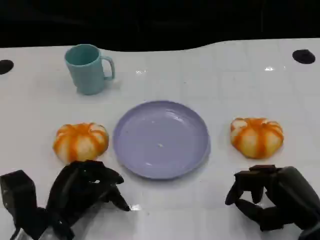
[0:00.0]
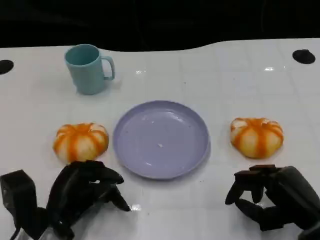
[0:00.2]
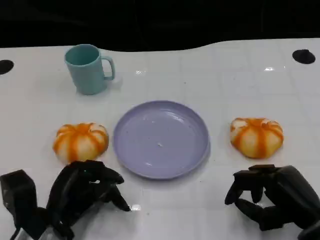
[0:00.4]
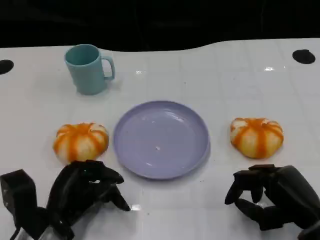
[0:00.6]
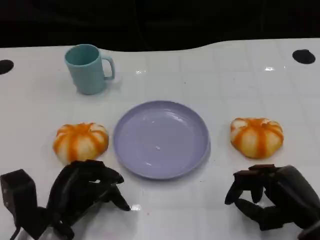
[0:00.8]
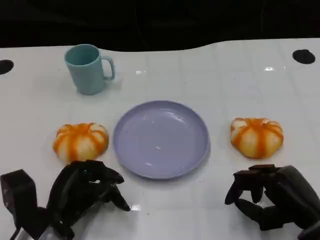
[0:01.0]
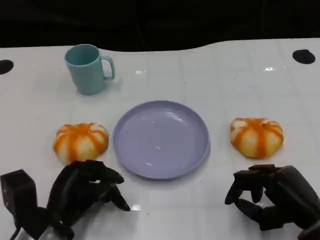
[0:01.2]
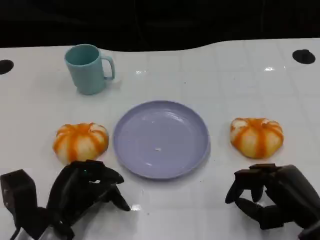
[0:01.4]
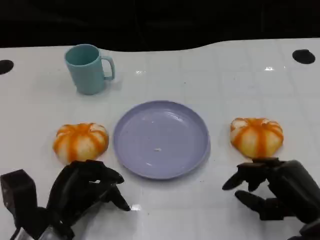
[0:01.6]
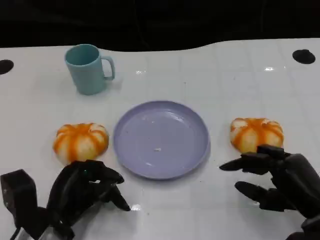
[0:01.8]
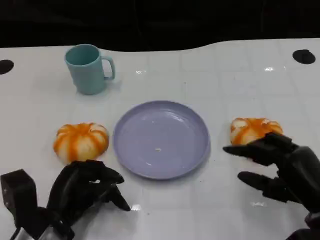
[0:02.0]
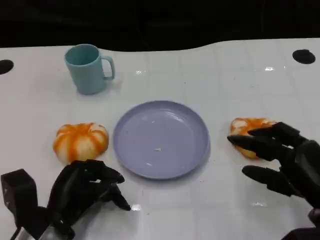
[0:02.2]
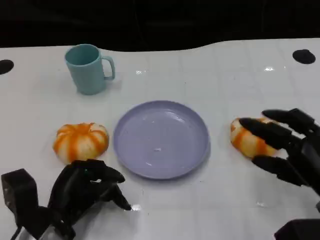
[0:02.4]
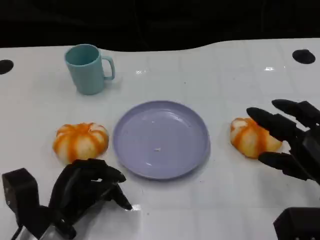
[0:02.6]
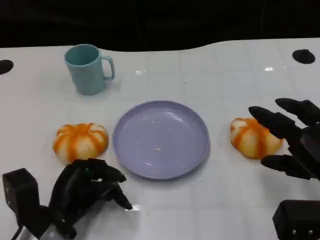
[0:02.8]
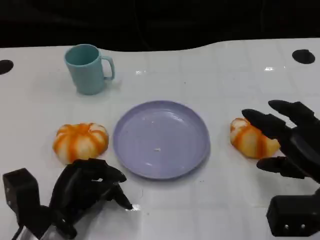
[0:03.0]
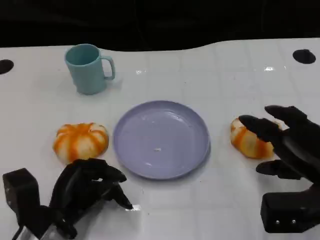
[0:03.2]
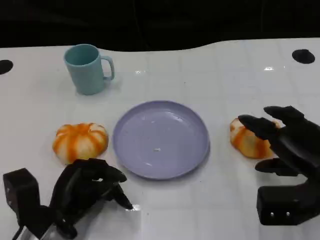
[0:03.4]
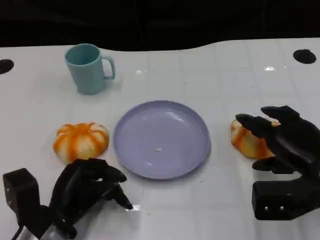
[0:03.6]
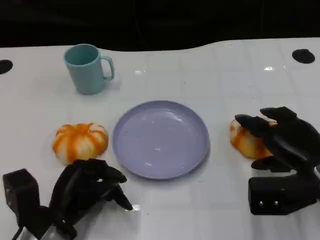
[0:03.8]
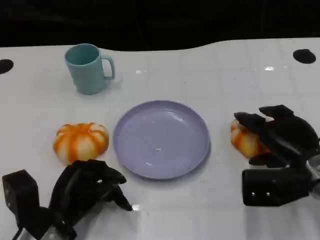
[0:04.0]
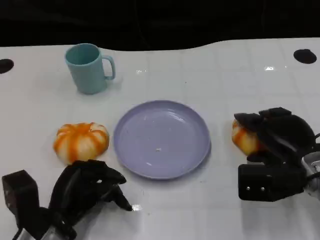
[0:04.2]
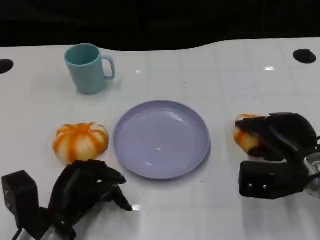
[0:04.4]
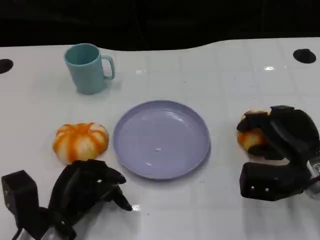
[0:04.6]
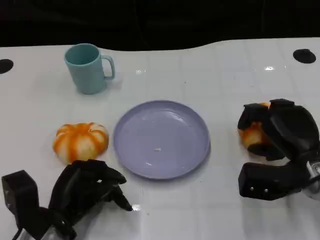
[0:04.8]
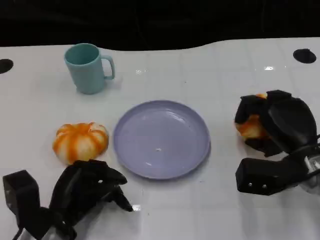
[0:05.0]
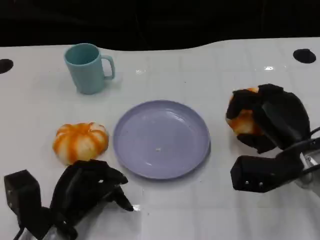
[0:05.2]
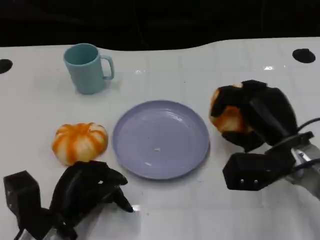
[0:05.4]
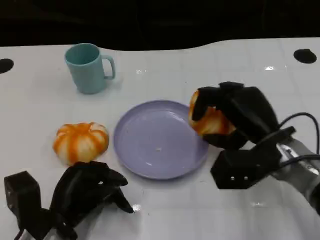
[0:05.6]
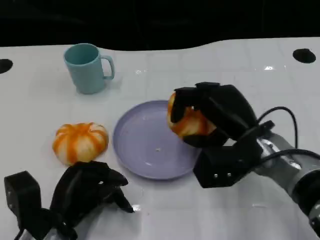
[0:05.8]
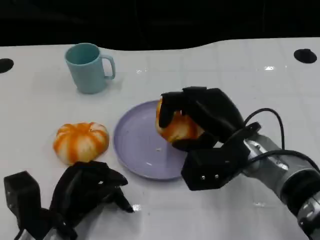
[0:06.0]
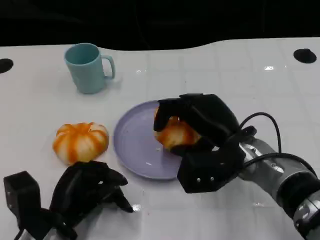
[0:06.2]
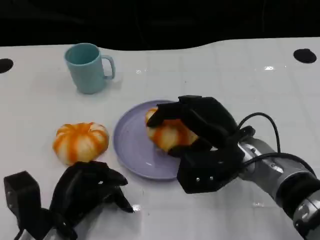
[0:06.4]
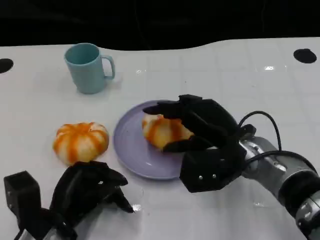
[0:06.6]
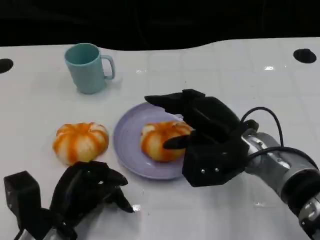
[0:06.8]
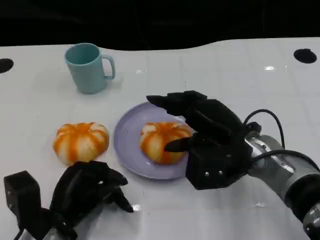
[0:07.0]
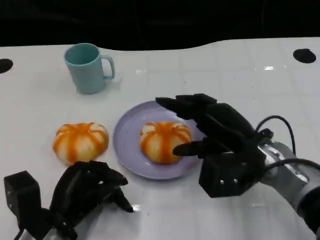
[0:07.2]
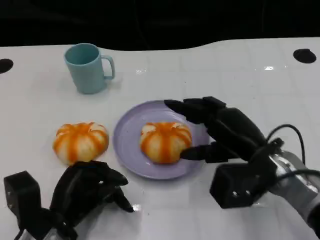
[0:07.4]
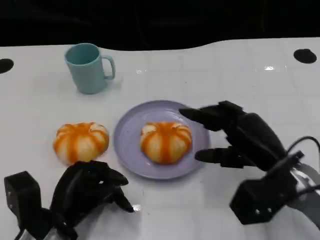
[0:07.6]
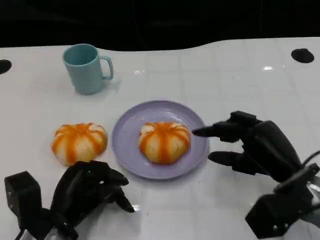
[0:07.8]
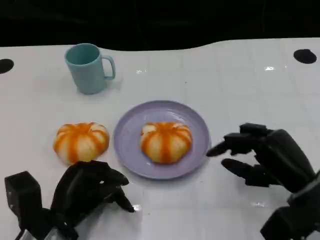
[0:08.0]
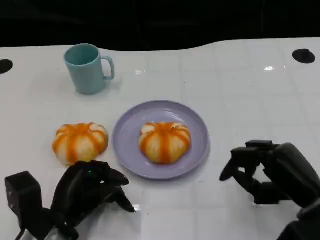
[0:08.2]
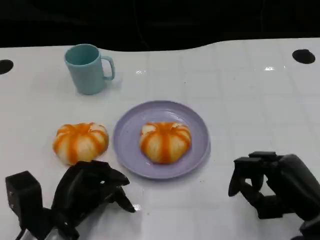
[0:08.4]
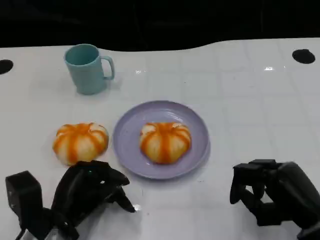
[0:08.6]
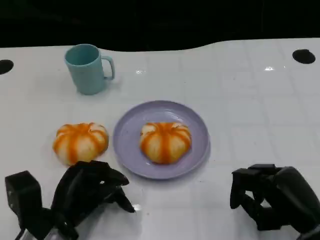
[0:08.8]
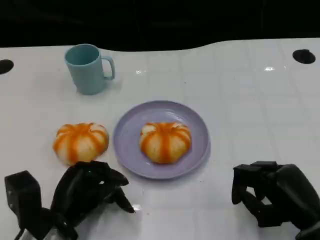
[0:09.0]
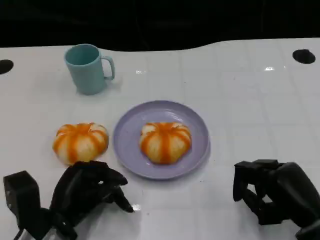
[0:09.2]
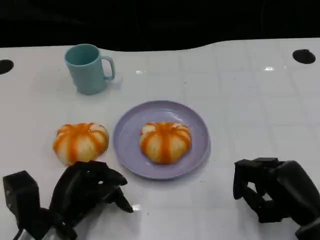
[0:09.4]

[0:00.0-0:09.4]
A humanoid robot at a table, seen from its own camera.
Task of the whole recording: Grasp the bread from the table and place it into the plate.
0:00.0 to 0:01.6: Both hands stay about where they are.
0:01.6 to 0:03.2: The right hand moves about 5 cm.
0:03.2 to 0:04.8: The right hand shifts by about 5 cm.
0:04.8 to 0:06.2: The right hand shifts some 10 cm to the left.
0:06.2 to 0:07.8: The right hand goes some 10 cm to the right.
0:07.8 to 0:09.4: The right hand ends up approximately 5 cm from where it was.

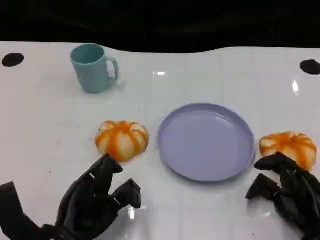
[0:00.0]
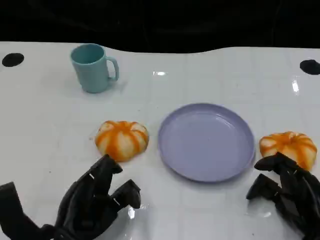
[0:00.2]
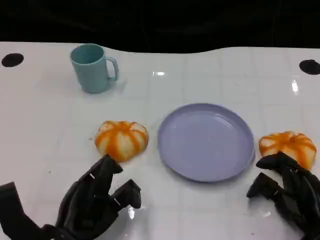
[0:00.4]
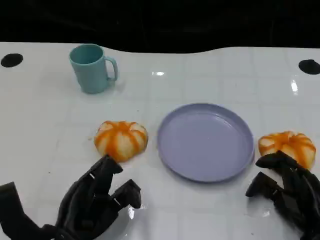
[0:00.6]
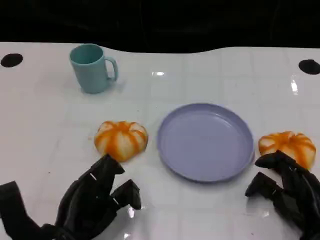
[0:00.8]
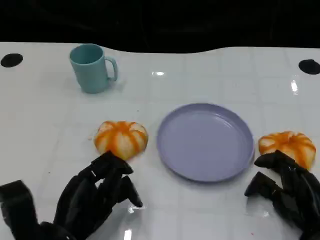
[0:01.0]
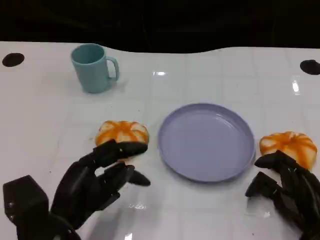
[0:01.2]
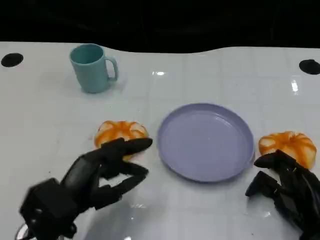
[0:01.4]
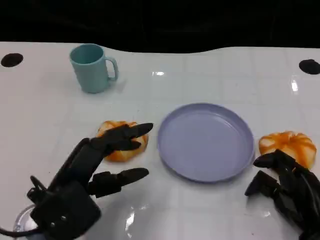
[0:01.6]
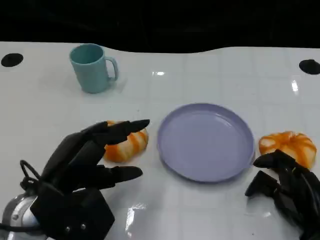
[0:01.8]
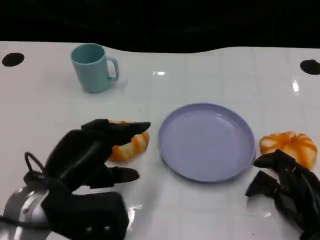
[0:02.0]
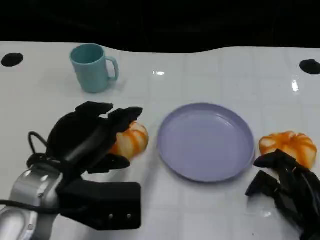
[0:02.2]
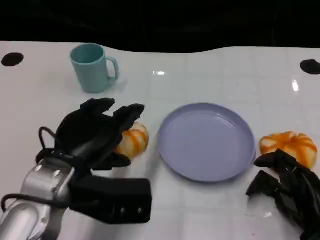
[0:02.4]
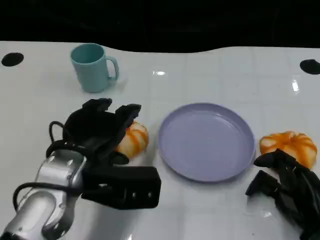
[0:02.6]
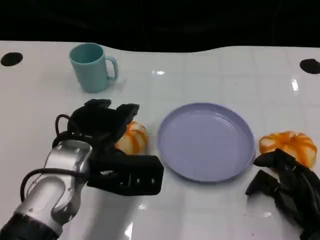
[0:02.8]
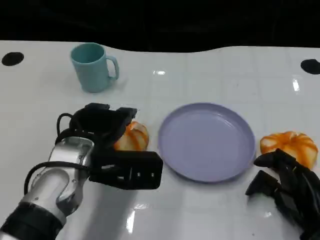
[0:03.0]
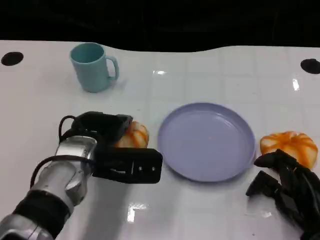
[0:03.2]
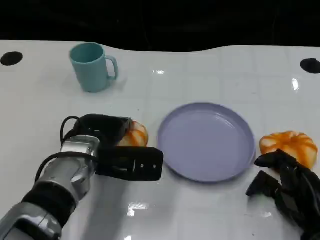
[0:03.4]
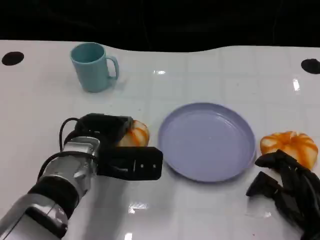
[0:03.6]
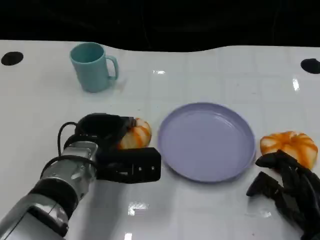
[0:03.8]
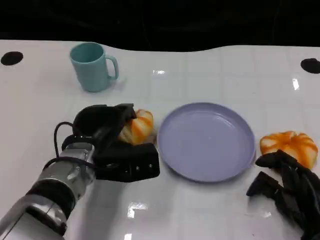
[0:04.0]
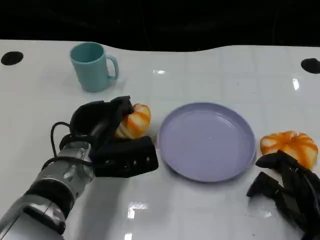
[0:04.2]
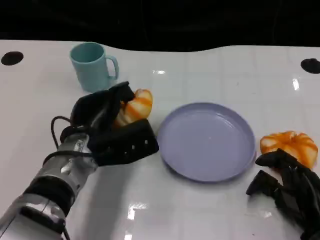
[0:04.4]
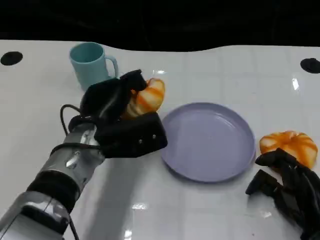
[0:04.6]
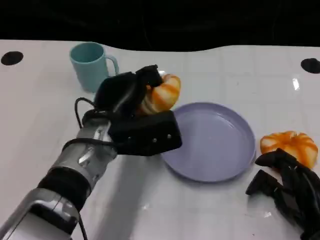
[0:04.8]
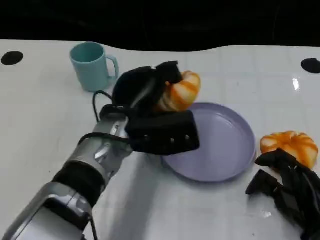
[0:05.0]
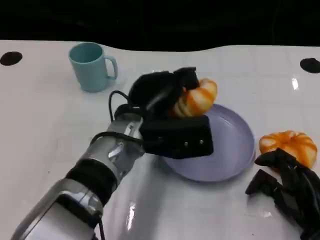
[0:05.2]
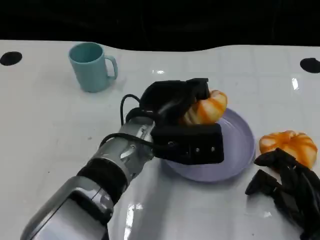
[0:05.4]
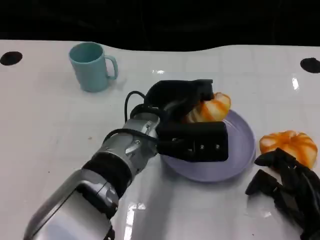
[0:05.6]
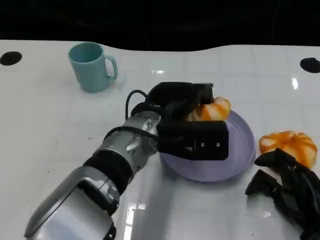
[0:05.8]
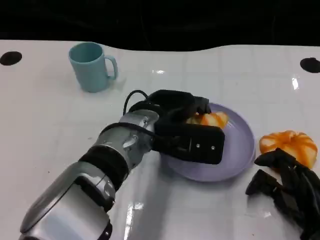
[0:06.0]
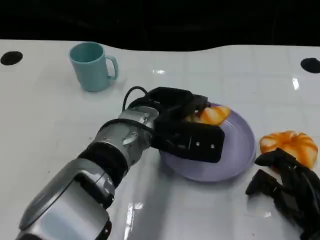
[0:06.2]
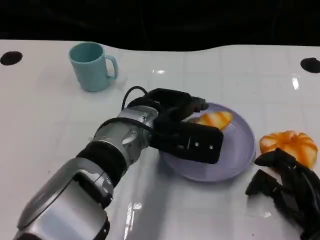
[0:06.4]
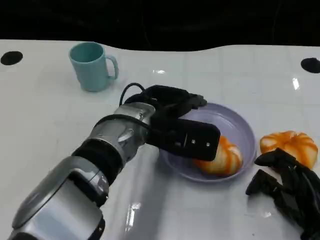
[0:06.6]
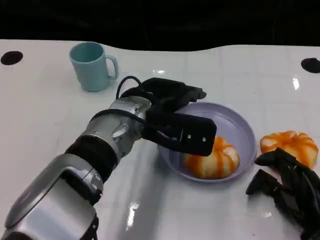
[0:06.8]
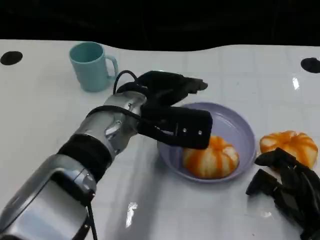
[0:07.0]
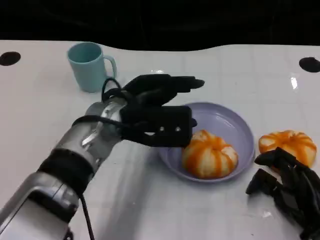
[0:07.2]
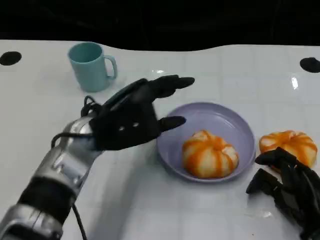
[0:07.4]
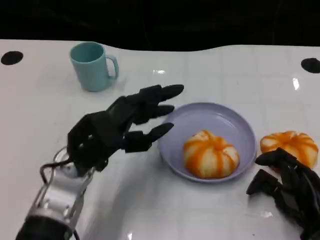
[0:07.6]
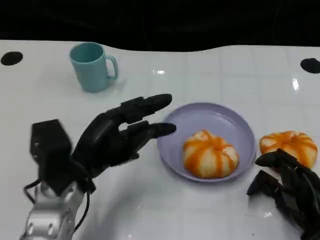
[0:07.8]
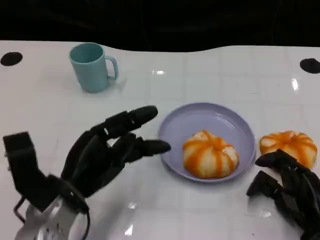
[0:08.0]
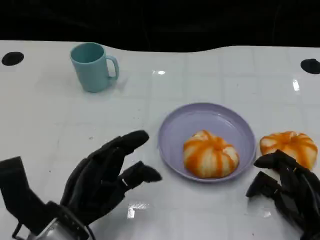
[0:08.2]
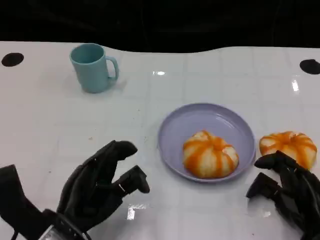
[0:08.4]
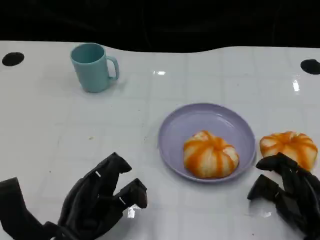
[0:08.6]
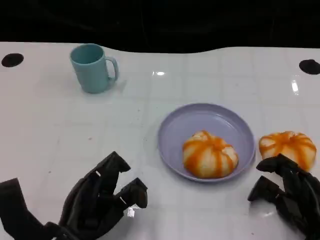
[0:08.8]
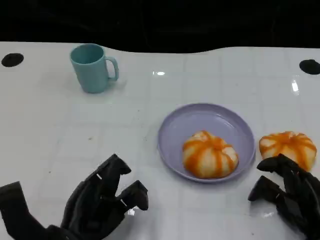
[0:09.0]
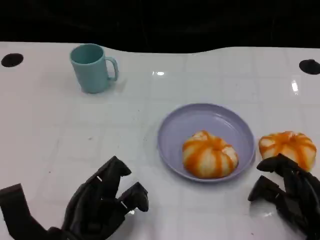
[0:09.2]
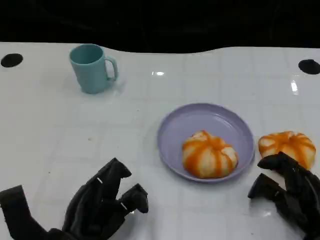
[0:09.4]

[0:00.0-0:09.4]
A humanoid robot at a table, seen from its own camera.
Task of the whole recording: Grasp the bread from the table and place it into the plate.
0:00.0 to 0:01.6: The left hand travels upward by roughly 5 cm.
0:01.6 to 0:03.2: The left hand heads forward and to the right, covering roughly 10 cm.
0:04.8 to 0:06.2: The left hand moves to the right, approximately 5 cm.
0:06.2 to 0:07.8: The left hand shifts roughly 15 cm to the left and backward.
0:07.8 to 0:09.4: The left hand shifts approximately 10 cm backward and downward.

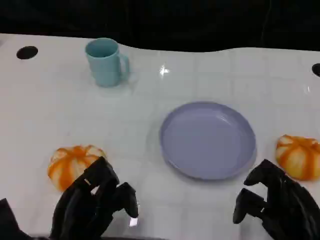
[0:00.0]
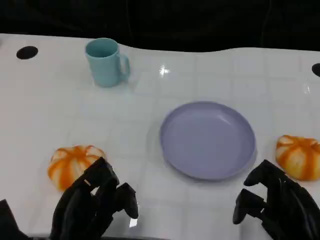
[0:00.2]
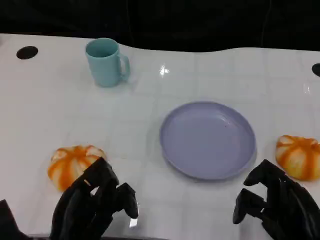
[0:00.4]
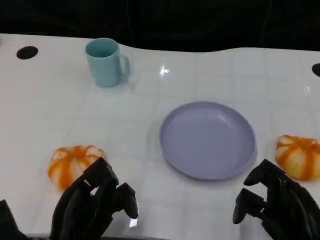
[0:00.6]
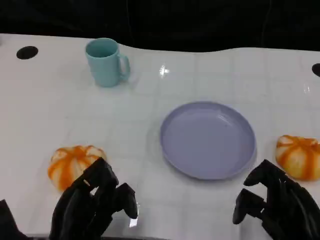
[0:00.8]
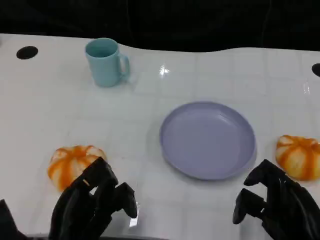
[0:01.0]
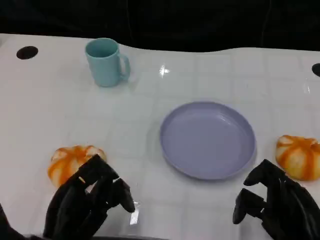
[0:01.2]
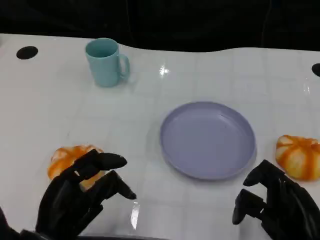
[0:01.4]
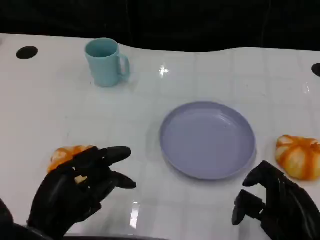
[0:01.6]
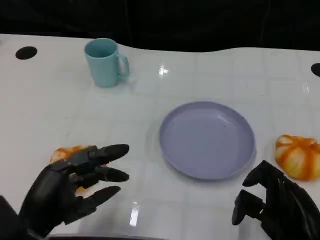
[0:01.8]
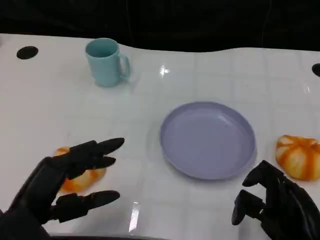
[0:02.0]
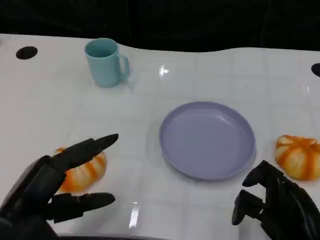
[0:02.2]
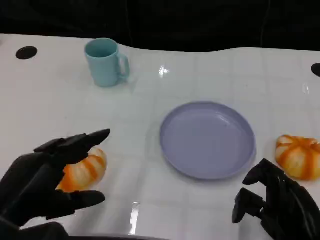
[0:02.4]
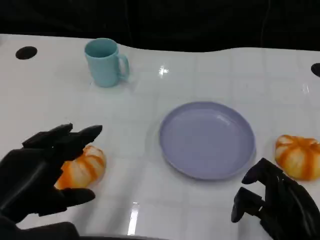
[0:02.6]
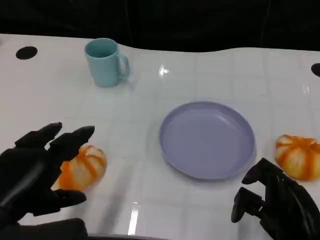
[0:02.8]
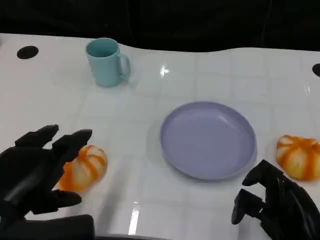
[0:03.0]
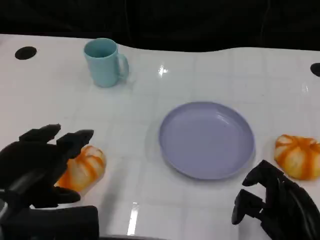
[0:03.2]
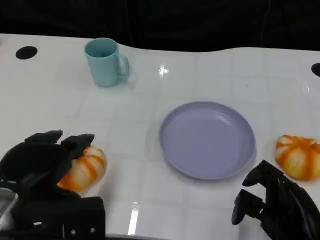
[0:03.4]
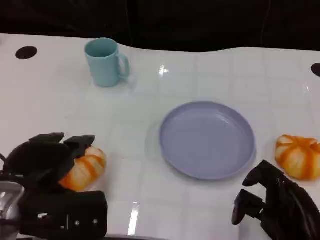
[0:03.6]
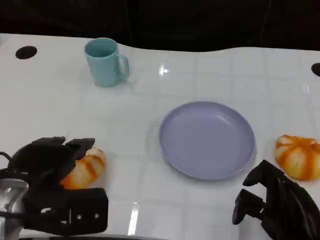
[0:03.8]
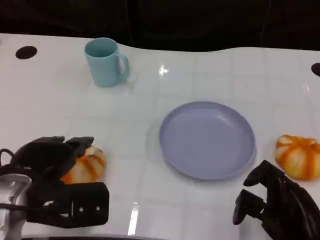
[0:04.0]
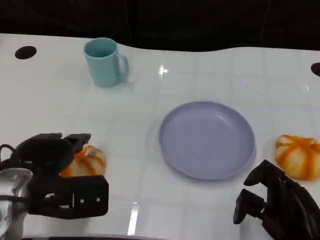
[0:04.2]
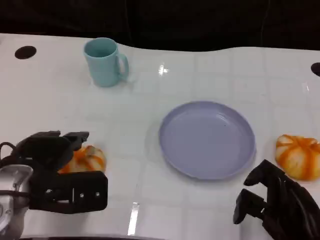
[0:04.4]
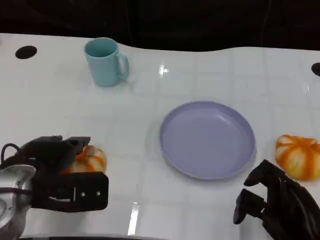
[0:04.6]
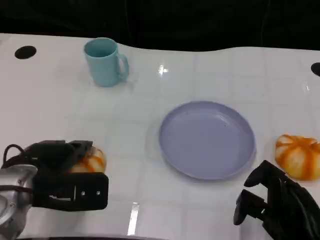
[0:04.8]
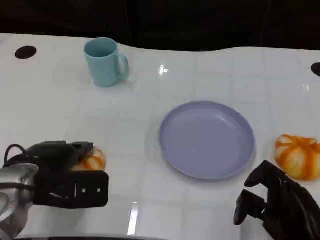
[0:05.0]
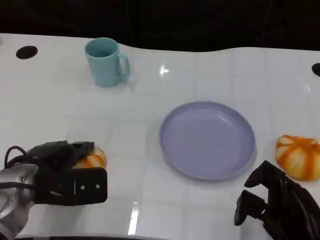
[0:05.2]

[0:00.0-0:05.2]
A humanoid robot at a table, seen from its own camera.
Task of the whole recording: Grasp the bread from the table and place it into the plate.
0:00.0 to 0:01.8: The left hand shifts some 5 cm upward.
0:01.8 to 0:03.4: The left hand travels upward by about 5 cm.
0:03.4 to 0:05.2: The left hand travels forward and downward by approximately 10 cm.
